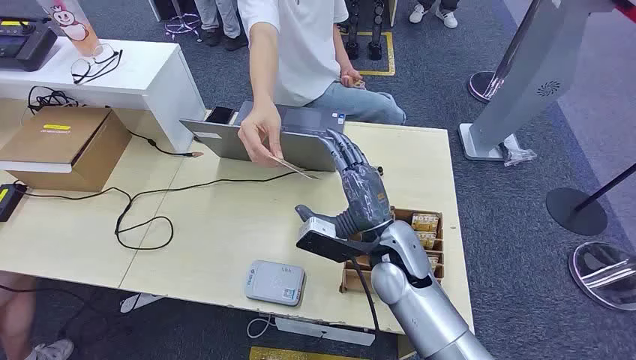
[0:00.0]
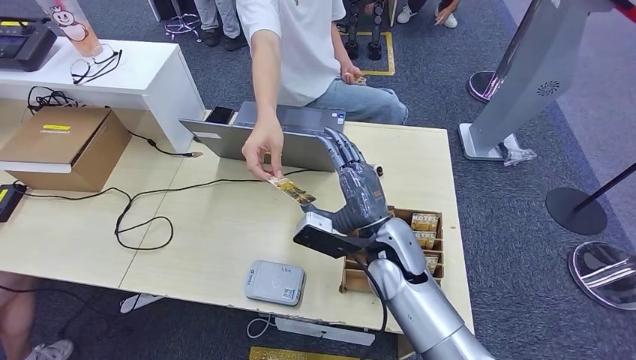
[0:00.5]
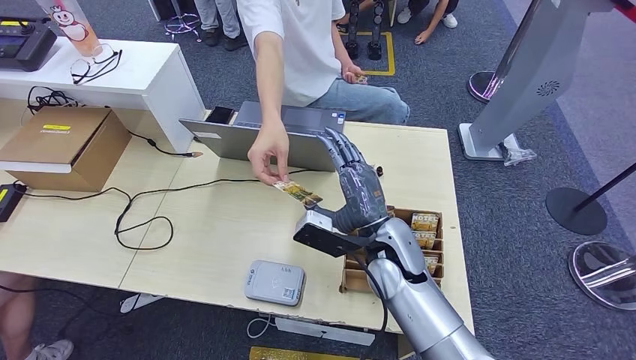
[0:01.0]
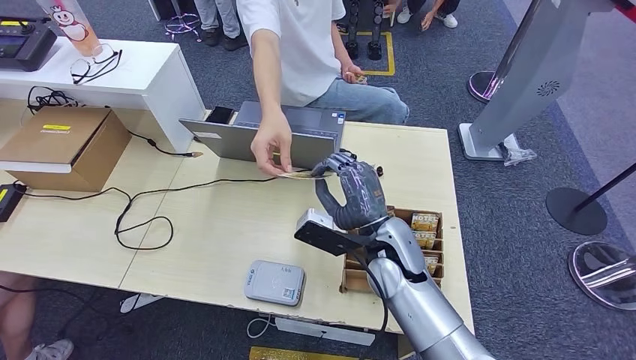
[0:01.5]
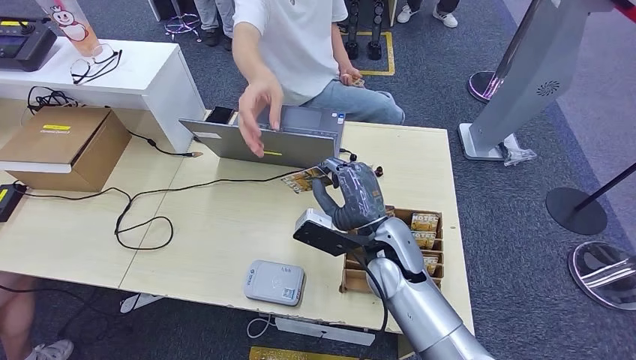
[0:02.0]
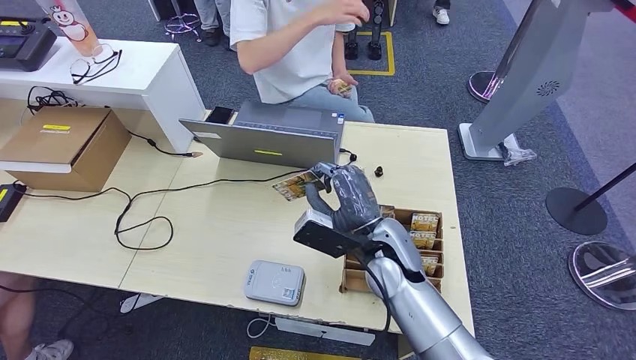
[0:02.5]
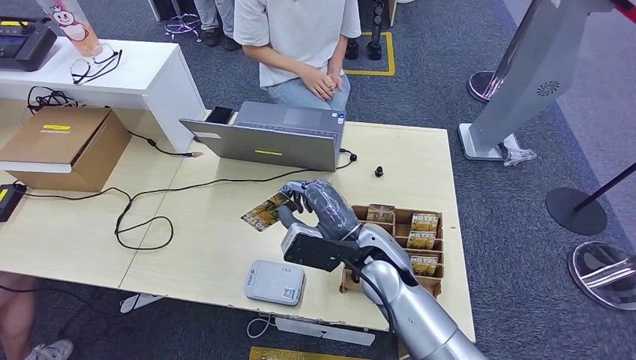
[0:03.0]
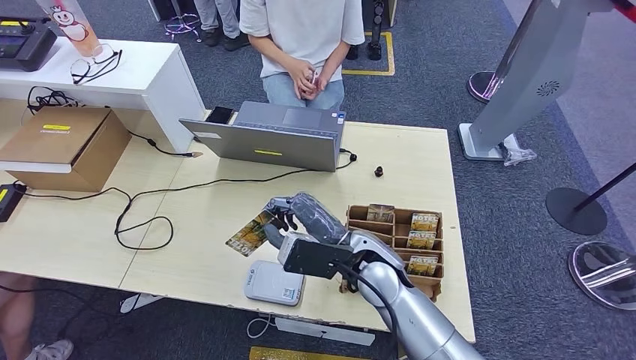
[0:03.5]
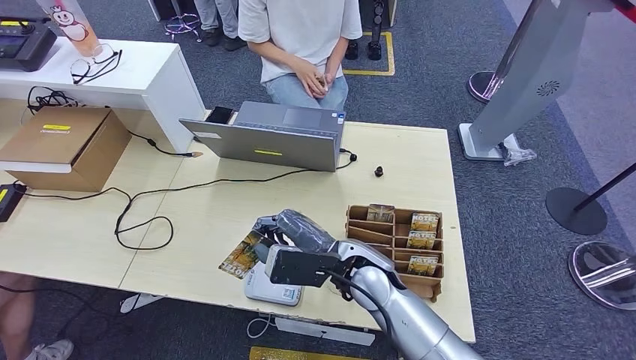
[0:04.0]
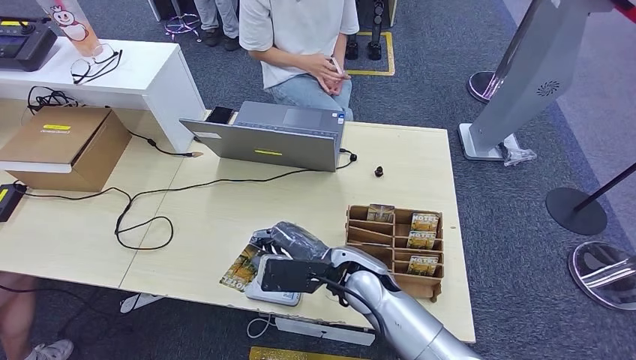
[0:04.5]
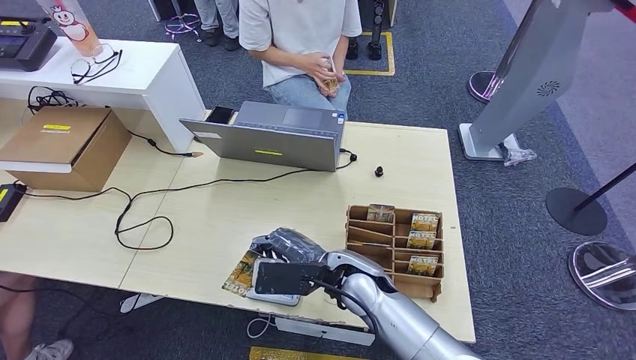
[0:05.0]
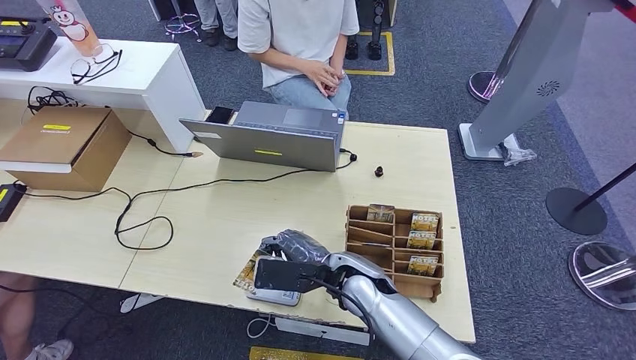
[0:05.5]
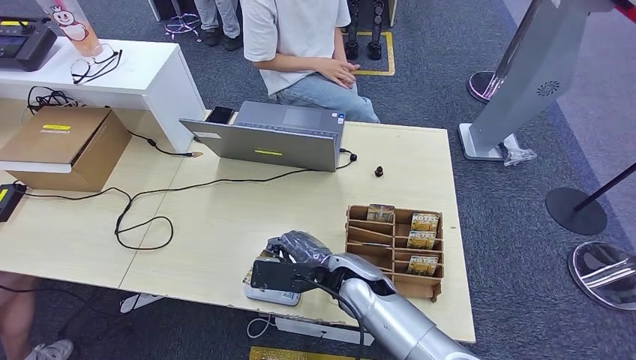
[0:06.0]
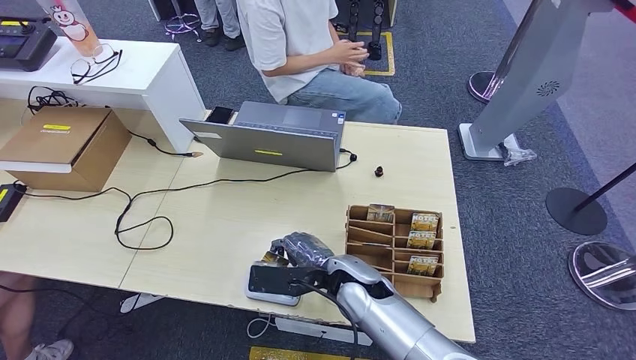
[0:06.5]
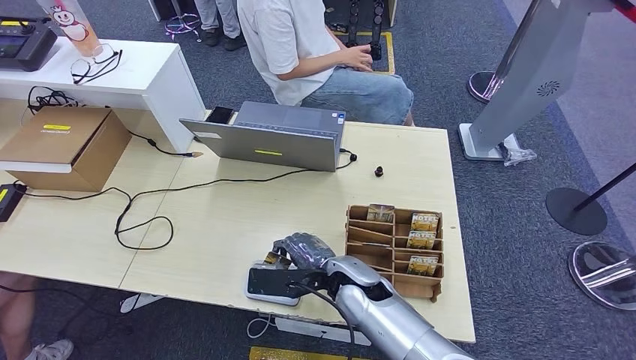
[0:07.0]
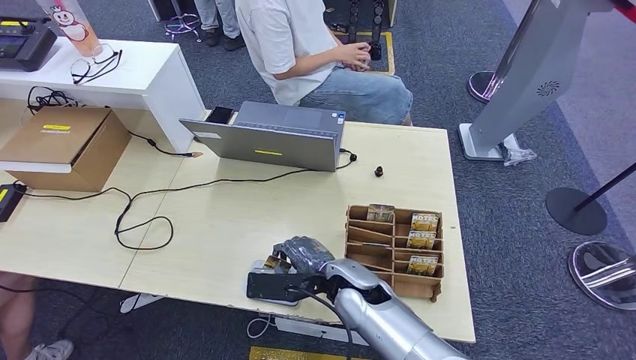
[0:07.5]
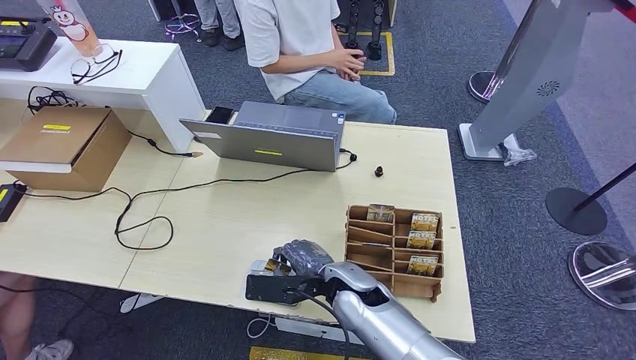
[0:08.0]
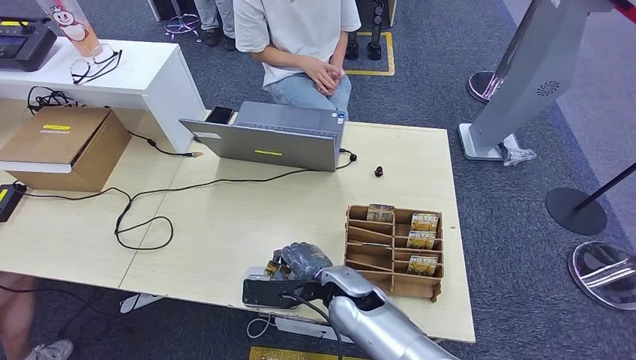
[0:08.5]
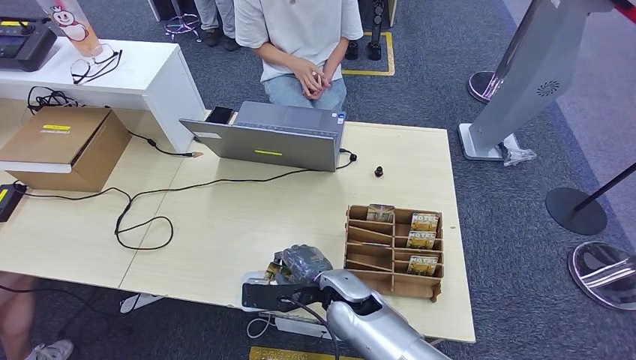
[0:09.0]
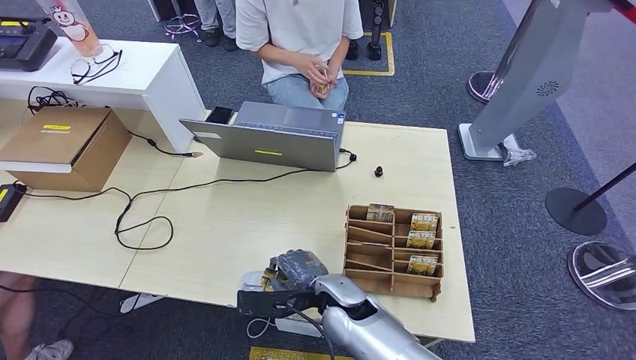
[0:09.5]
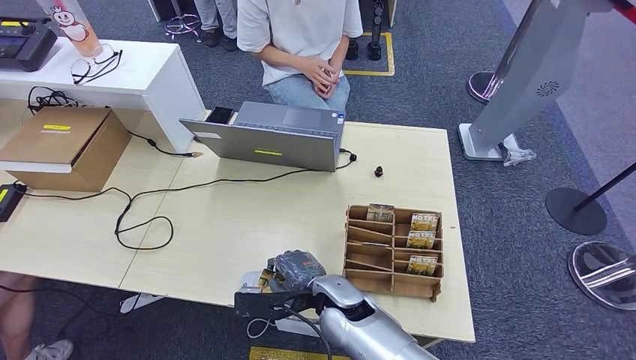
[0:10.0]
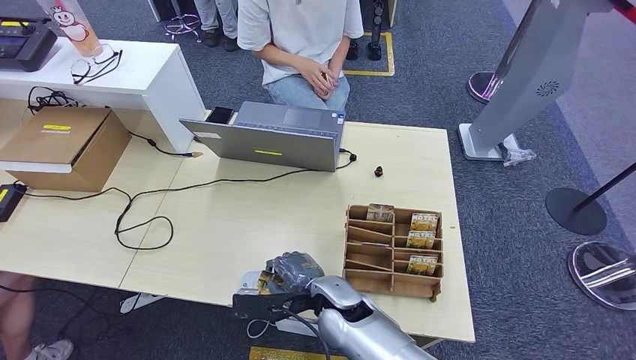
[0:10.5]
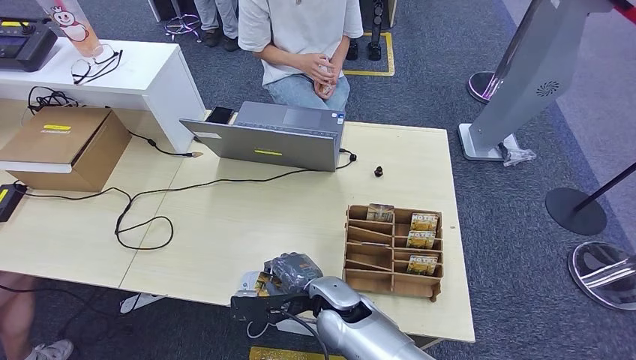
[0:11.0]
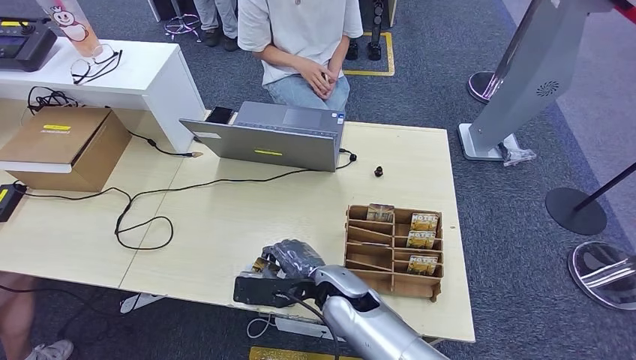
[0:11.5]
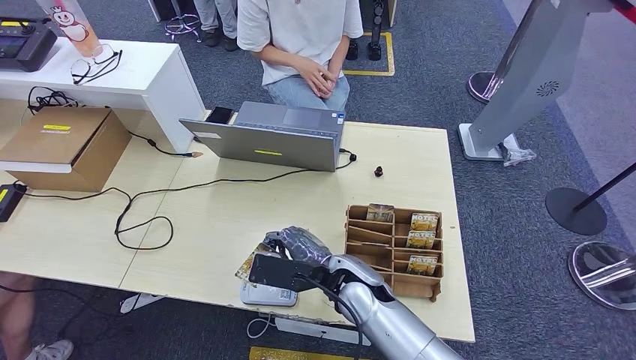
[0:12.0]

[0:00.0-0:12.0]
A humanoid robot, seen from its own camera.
Step, 0:00.0 to 0:02.5: Take the ID card from the person's hand.
Step, 0:03.0 to 0:08.5: Place the ID card on the card reader.
0:02.0 to 0:04.0: The right hand moves some 5 cm.
0:06.0 to 0:10.0: The hands stay close to where they were, moving slightly.
0:10.0 to 0:12.0: The right hand moves approximately 5 cm.

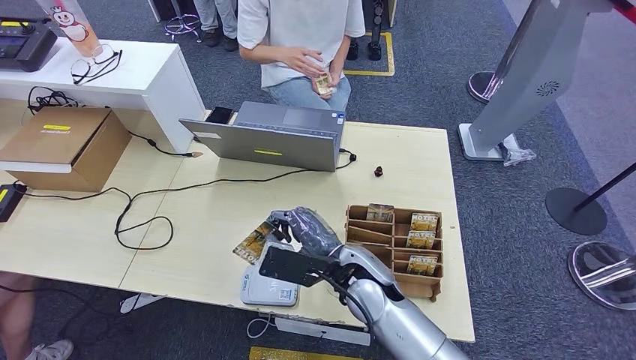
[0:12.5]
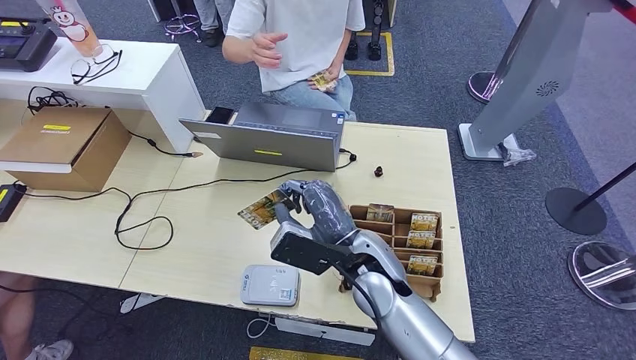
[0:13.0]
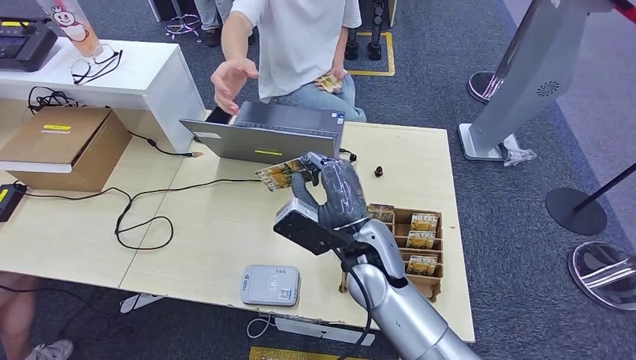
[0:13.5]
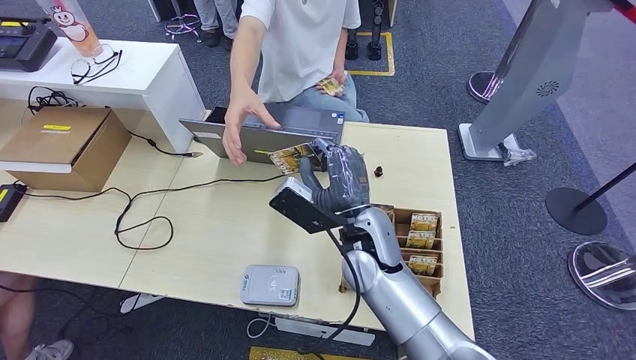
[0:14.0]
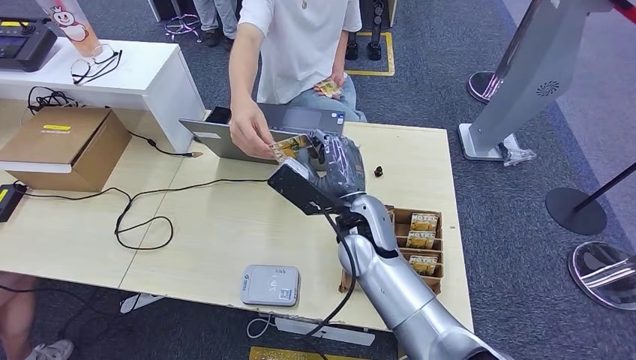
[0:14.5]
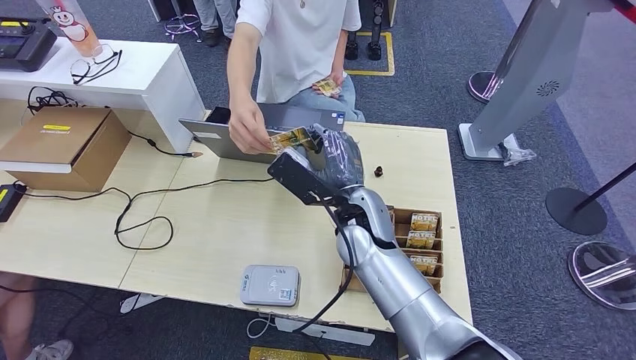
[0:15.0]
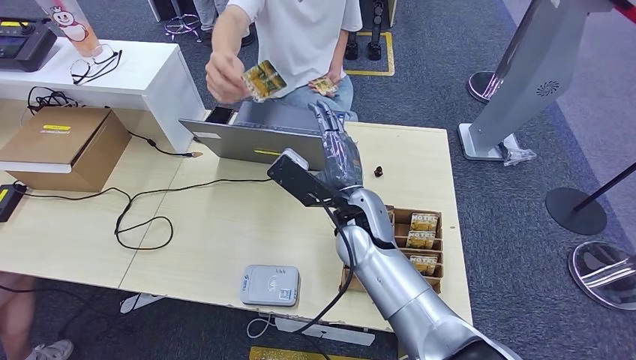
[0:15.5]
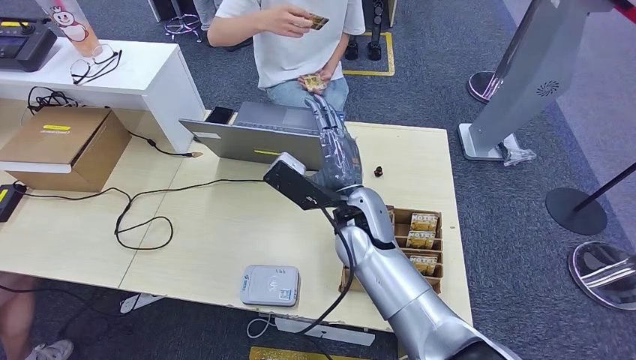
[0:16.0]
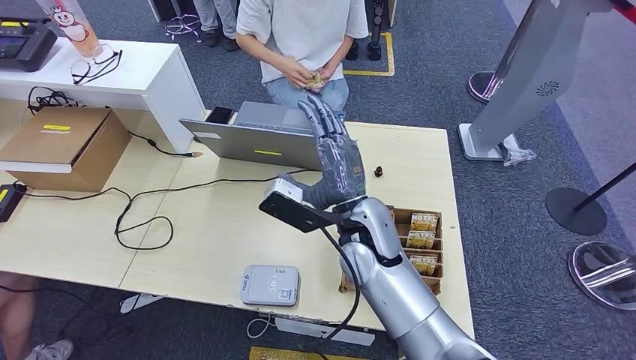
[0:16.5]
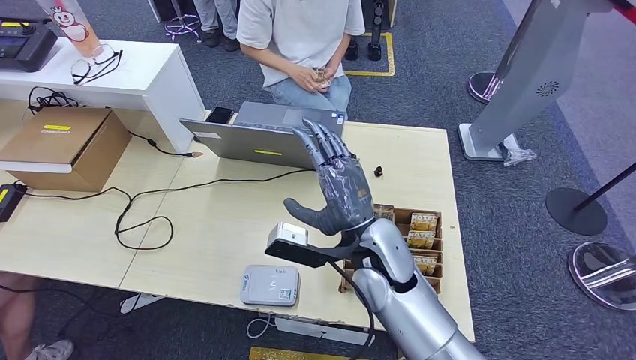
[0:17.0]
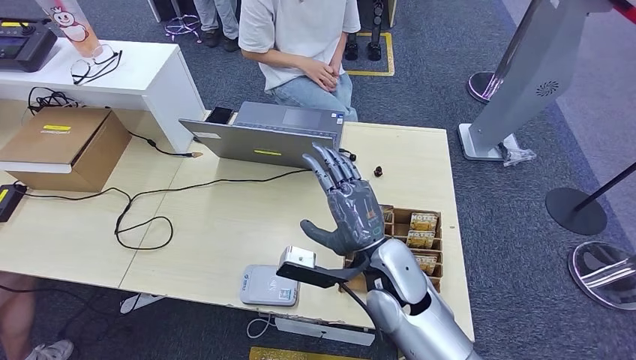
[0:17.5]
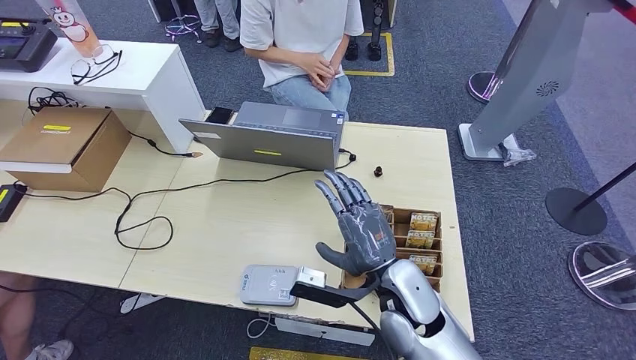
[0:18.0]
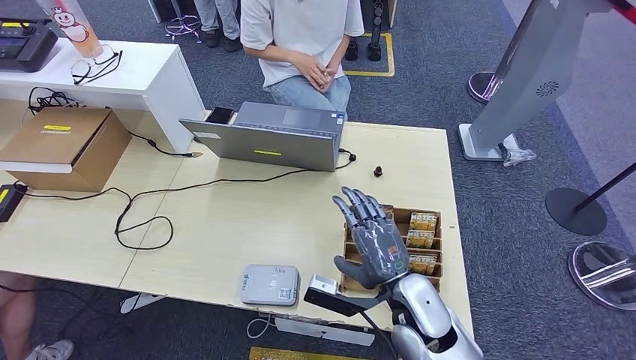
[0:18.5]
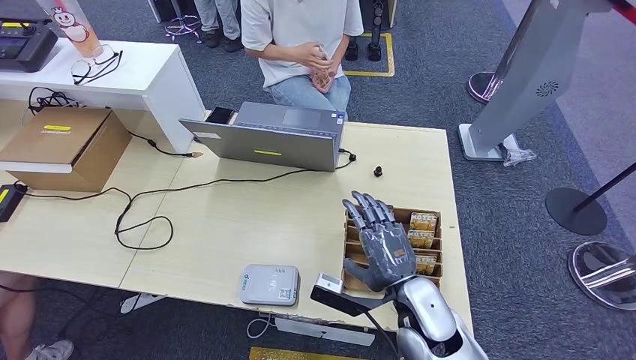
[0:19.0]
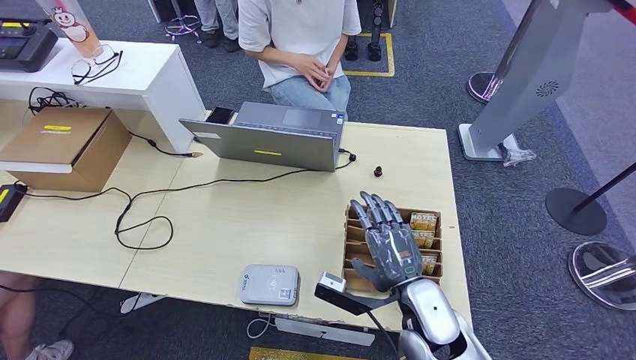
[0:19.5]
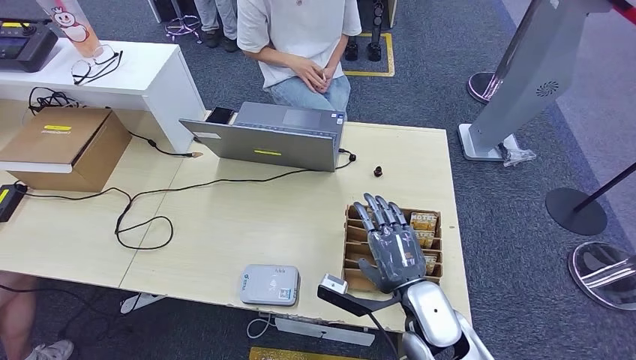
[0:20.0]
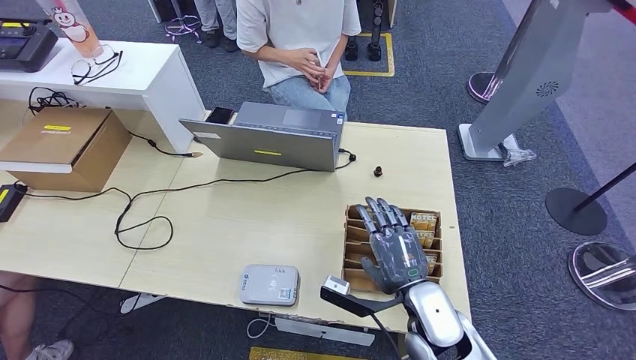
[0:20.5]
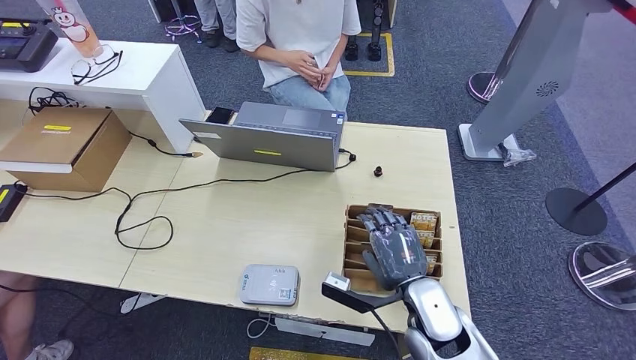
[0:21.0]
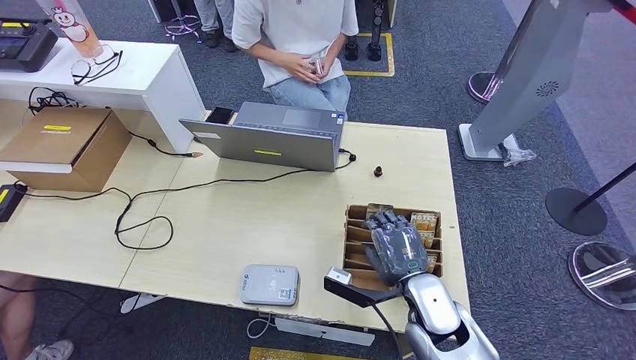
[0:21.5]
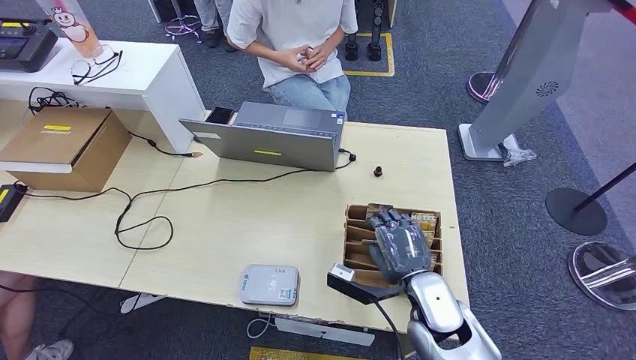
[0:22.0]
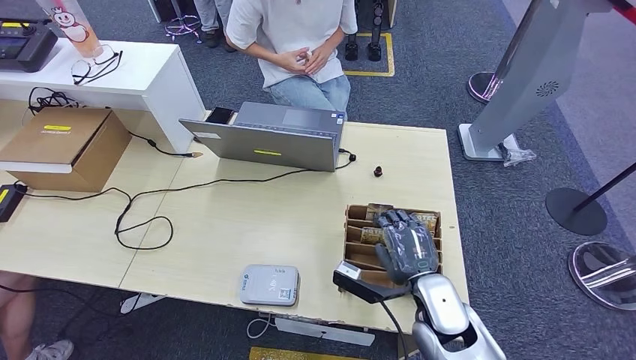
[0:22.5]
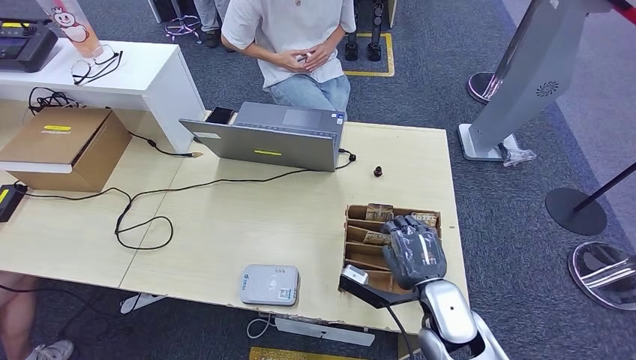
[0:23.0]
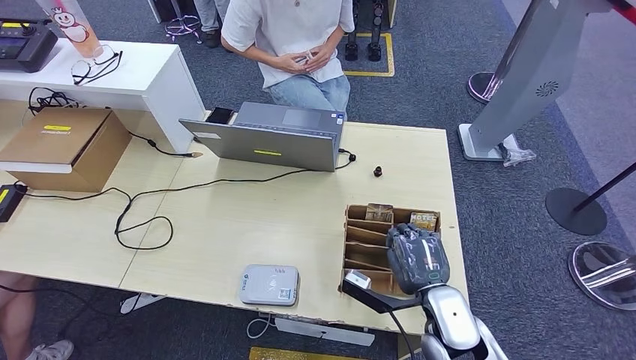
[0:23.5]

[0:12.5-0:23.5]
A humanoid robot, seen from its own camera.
Step, 0:12.5 to 0:16.0: Hand the ID card to the person.
0:12.5 to 0:14.5: The right hand is displaced forward and upward by some 10 cm.
0:14.5 to 0:16.0: Neither hand changes place.
0:16.0 to 0:18.0: The right hand moves backward, to the right and downward, roughly 15 cm.
0:18.0 to 0:20.0: The right hand changes place by approximately 5 cm.
0:20.0 to 0:23.5: There are only small adjustments of the hands.
